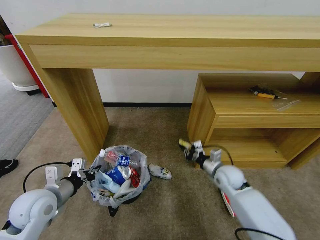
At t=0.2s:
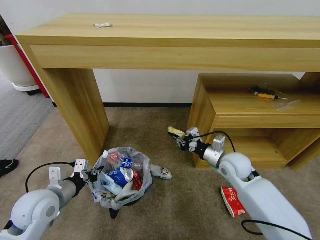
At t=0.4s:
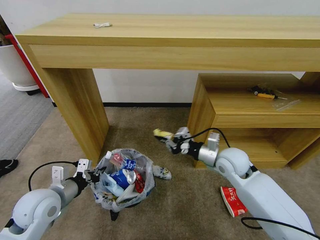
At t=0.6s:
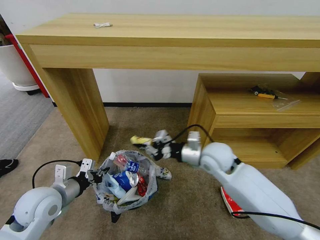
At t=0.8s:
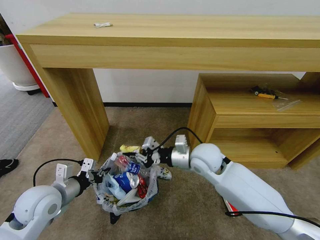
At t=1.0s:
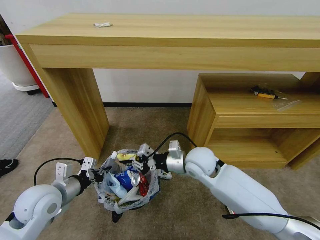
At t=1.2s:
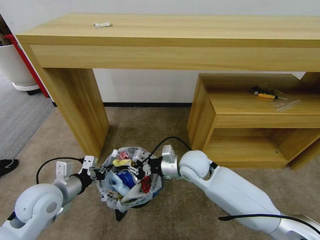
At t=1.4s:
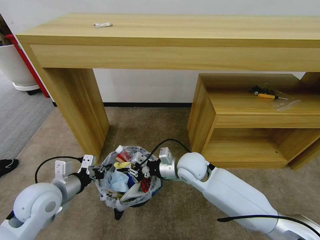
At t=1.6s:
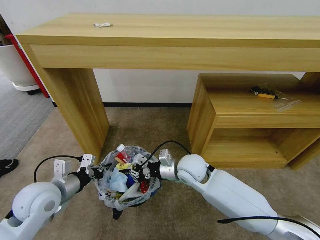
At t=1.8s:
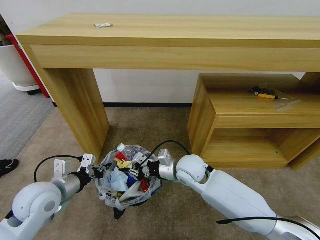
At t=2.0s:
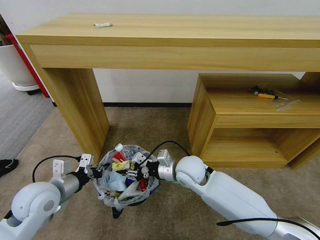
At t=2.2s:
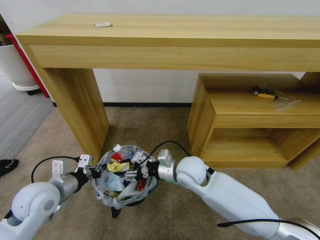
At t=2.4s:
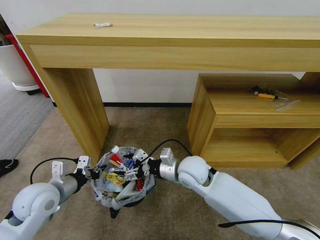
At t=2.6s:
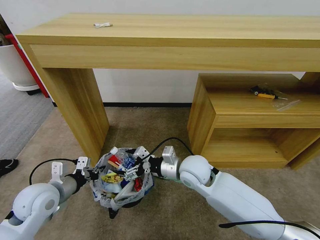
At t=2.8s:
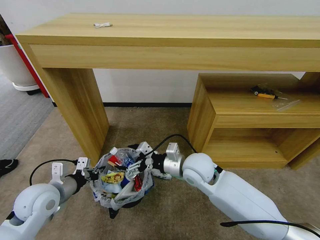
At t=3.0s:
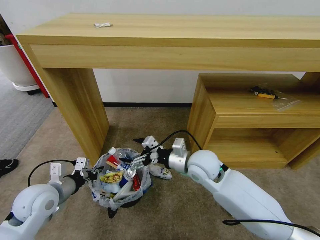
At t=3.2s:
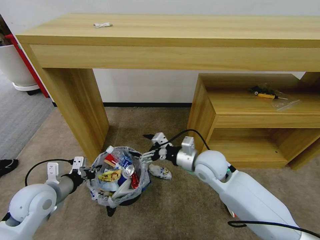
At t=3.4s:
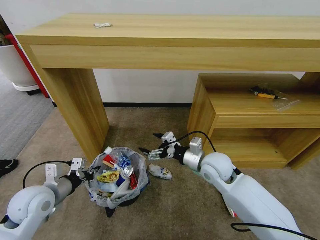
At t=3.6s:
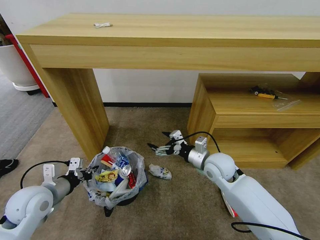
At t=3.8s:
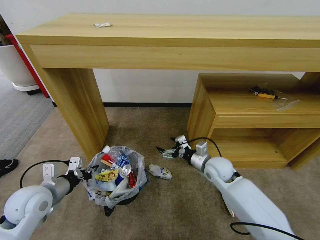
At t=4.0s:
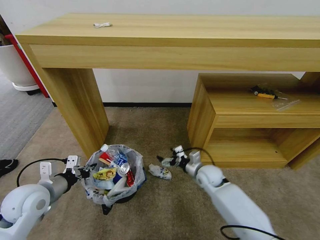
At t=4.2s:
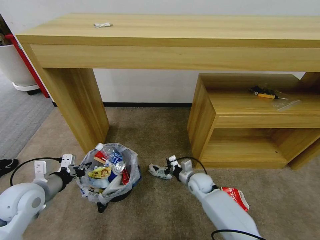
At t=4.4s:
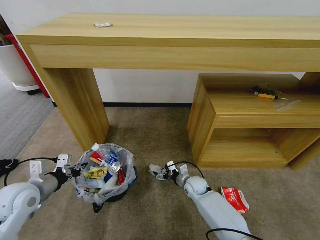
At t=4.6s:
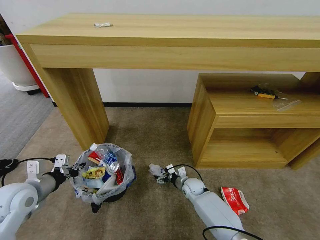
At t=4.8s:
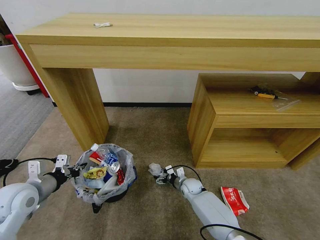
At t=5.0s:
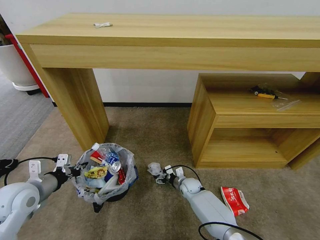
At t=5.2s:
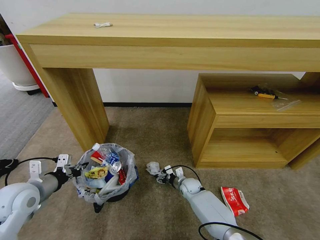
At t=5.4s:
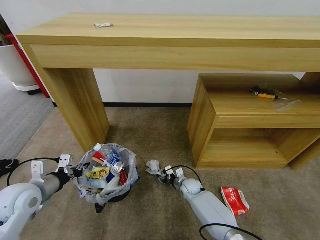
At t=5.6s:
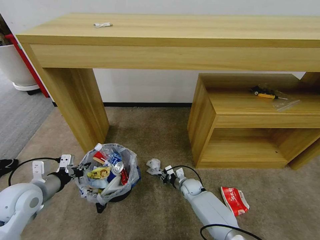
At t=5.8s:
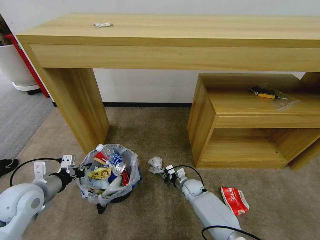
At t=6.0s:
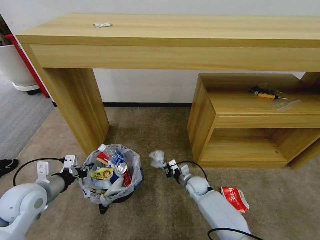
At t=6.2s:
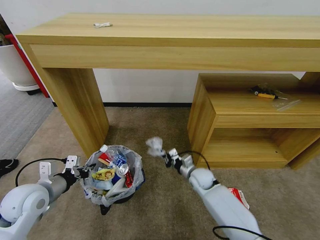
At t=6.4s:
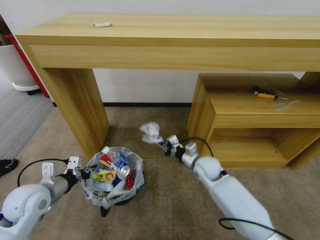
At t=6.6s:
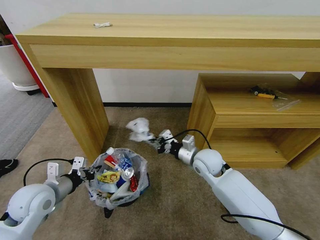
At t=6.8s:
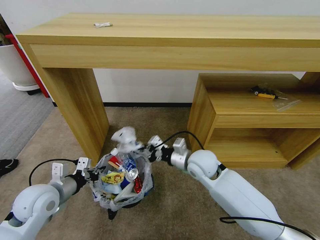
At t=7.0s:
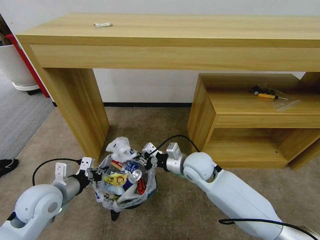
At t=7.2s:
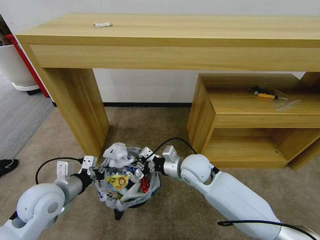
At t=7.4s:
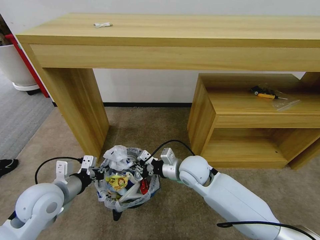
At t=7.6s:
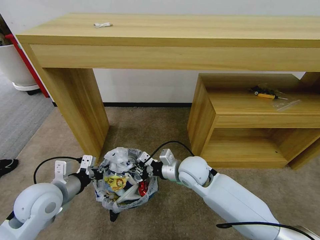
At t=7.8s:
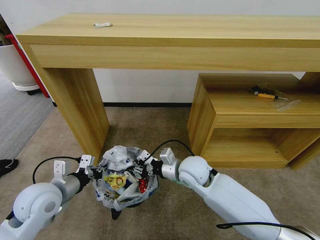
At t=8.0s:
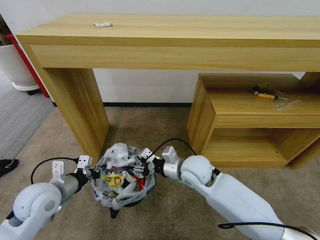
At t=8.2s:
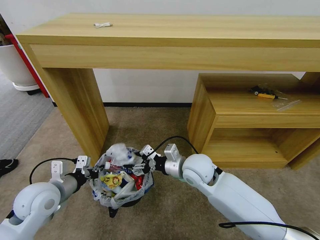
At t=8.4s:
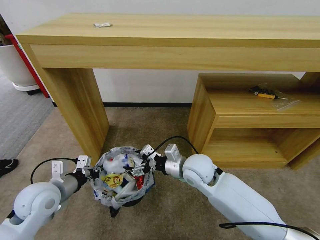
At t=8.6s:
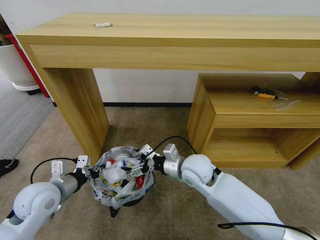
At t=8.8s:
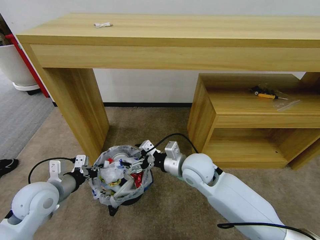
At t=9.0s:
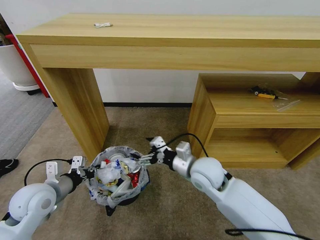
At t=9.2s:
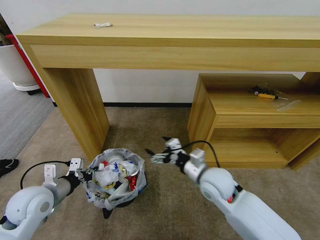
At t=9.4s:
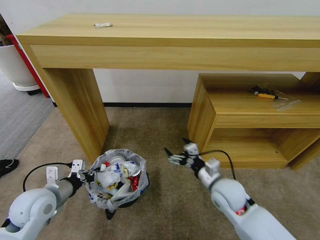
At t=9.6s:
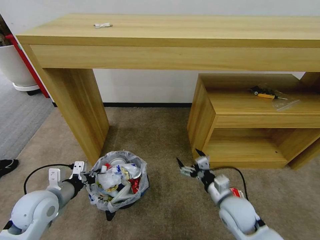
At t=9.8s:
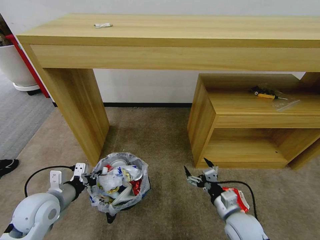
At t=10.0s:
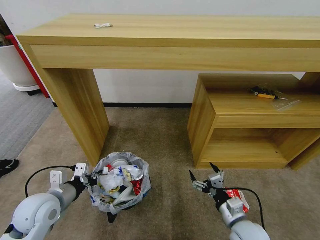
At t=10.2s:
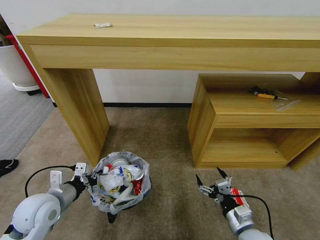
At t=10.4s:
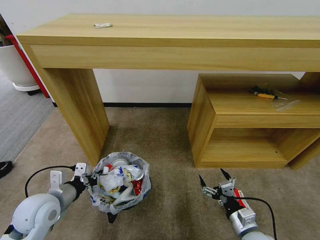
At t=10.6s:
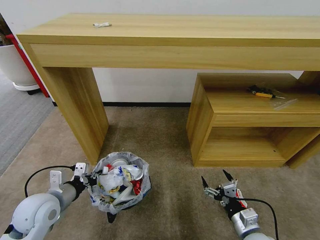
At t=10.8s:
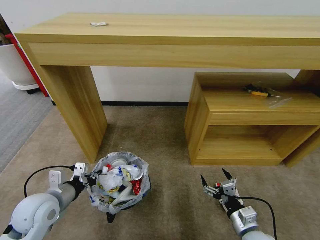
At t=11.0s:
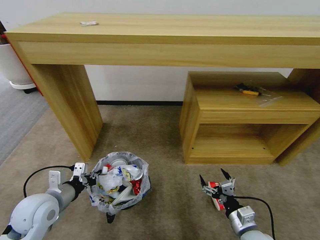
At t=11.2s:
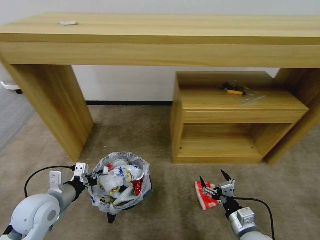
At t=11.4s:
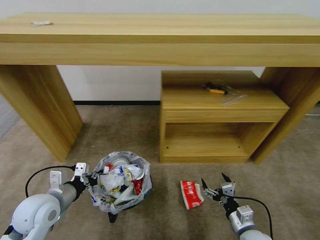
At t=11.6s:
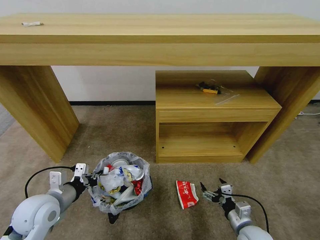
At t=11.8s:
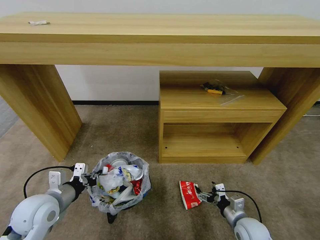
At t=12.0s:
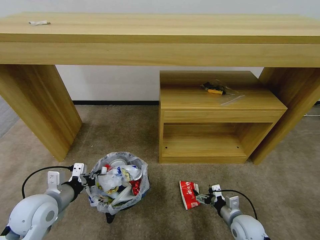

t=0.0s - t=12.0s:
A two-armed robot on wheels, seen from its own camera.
Task of the whole recording: Pick up the trash bin and place the garbage on the floor into it.
t=0.0s - t=1.6s: The right gripper heads to the left and upward, covering roughly 20 cm.
t=1.6s - t=3.0s: The right gripper ends up some 5 cm from where it was, and opens.
t=3.0s - t=4.4s: The left gripper shifts by some 5 cm; the right gripper is displaced downward by some 25 cm.
t=4.4s - t=6.0s: The right gripper closes its fingers.
t=6.0s - t=7.6s: The left gripper is displaced to the right by about 5 cm; the right gripper travels upward by roughly 20 cm.
t=7.6s - t=9.0s: The right gripper opens.
t=9.0s - t=10.4s: The right gripper is displaced backward, to the right and downward by approximately 30 cm.
t=10.4s - t=12.0s: The right gripper moves downward and forward, about 10 cm.

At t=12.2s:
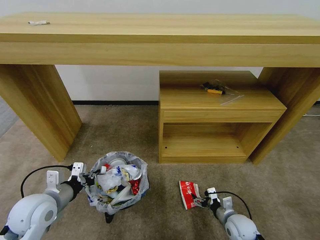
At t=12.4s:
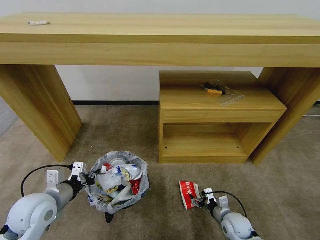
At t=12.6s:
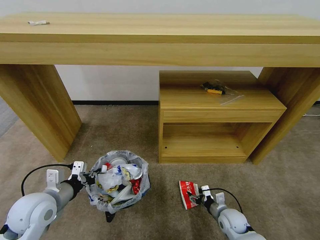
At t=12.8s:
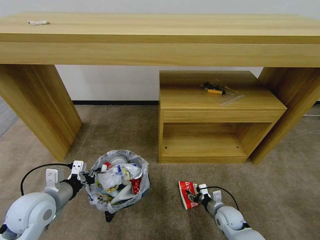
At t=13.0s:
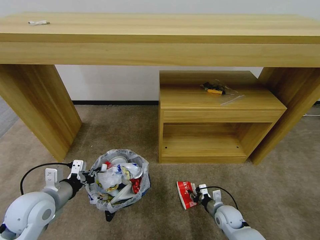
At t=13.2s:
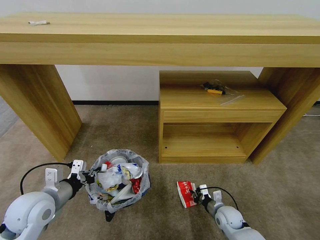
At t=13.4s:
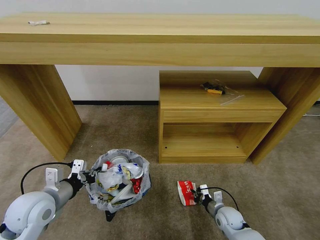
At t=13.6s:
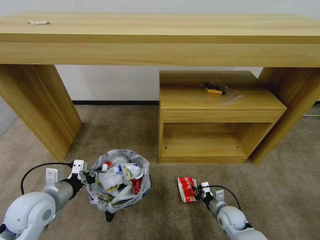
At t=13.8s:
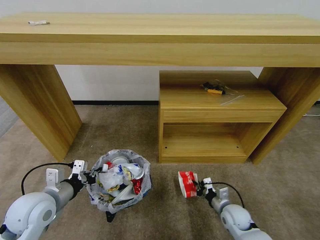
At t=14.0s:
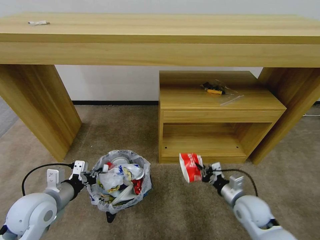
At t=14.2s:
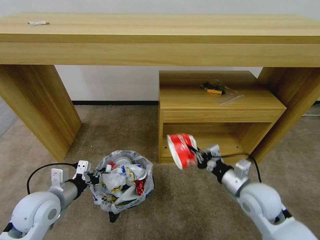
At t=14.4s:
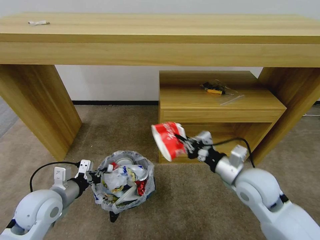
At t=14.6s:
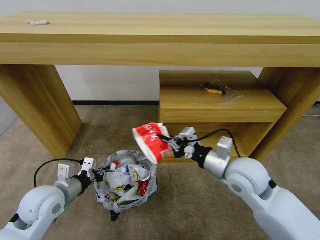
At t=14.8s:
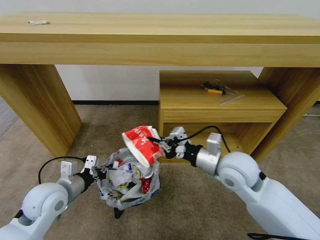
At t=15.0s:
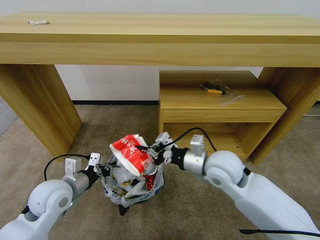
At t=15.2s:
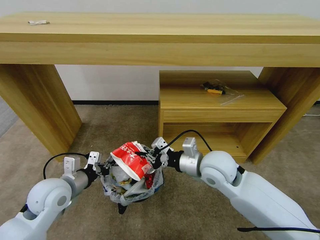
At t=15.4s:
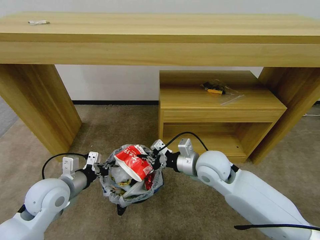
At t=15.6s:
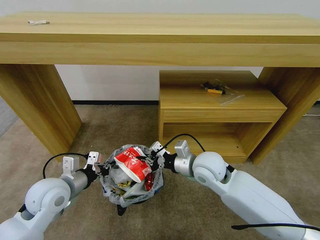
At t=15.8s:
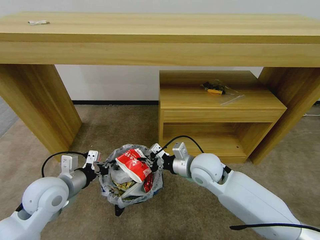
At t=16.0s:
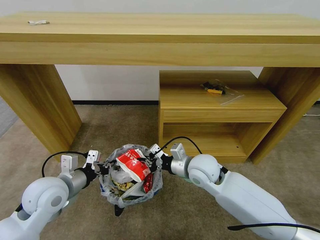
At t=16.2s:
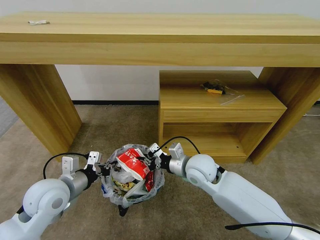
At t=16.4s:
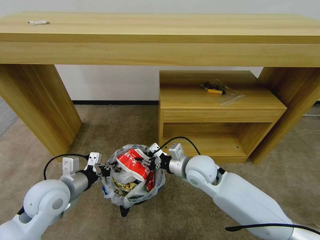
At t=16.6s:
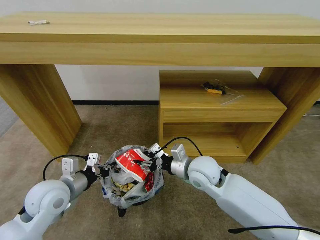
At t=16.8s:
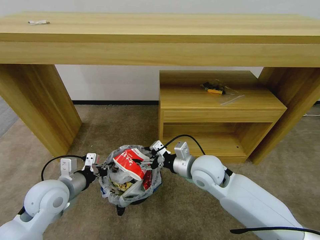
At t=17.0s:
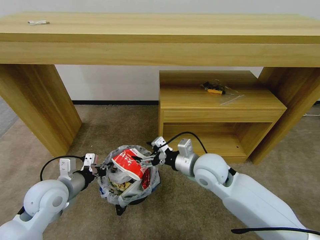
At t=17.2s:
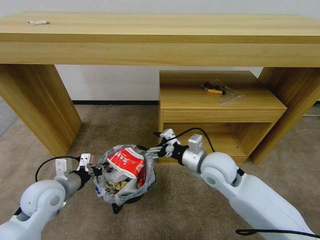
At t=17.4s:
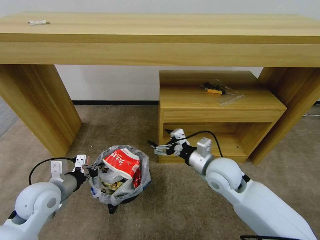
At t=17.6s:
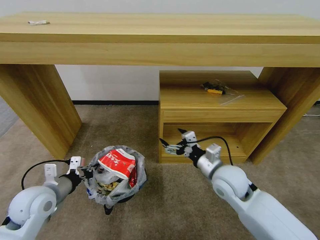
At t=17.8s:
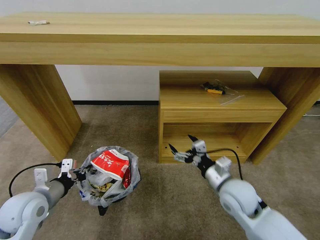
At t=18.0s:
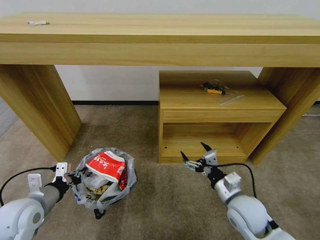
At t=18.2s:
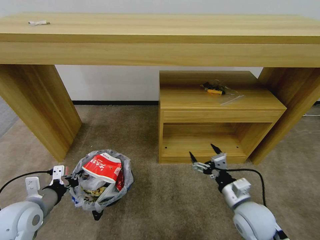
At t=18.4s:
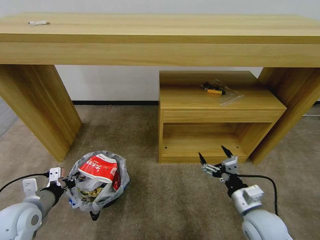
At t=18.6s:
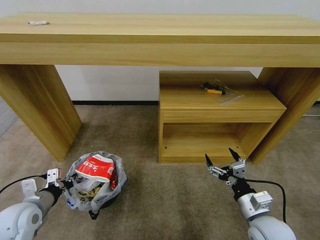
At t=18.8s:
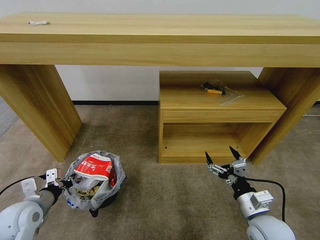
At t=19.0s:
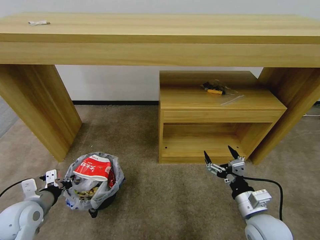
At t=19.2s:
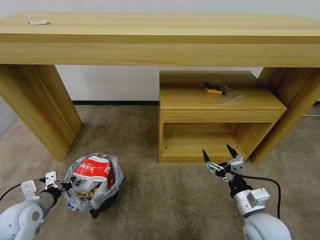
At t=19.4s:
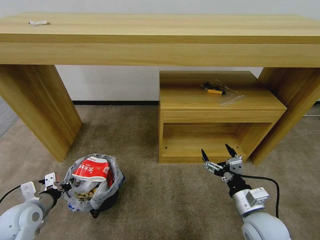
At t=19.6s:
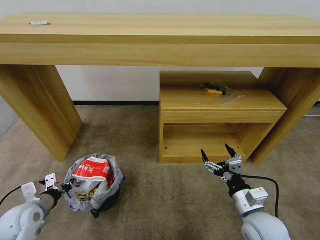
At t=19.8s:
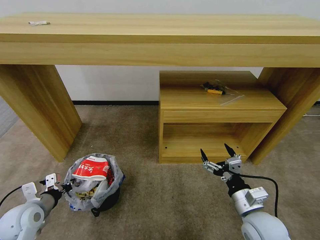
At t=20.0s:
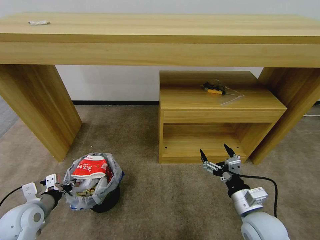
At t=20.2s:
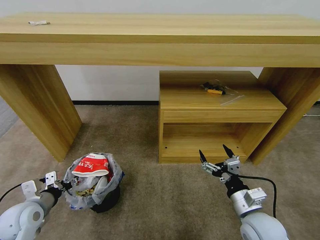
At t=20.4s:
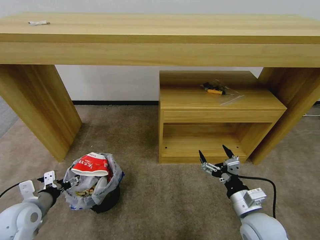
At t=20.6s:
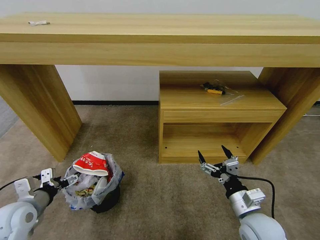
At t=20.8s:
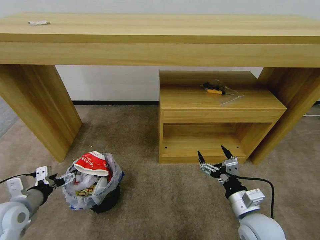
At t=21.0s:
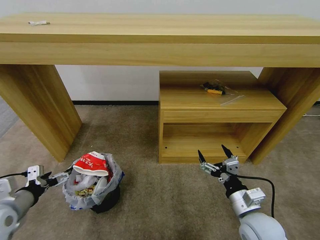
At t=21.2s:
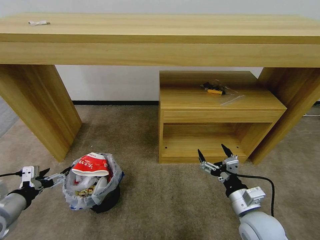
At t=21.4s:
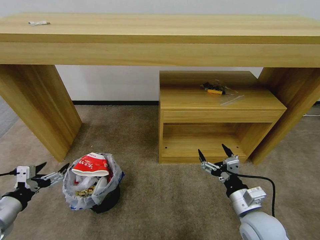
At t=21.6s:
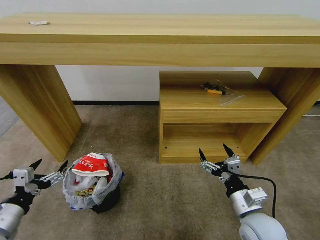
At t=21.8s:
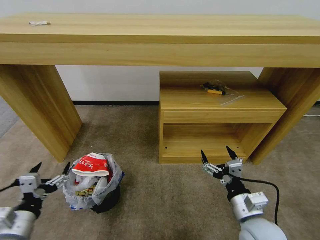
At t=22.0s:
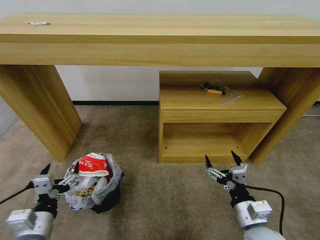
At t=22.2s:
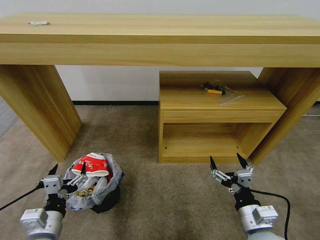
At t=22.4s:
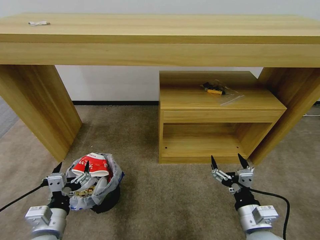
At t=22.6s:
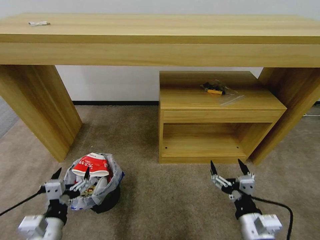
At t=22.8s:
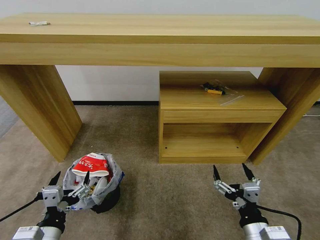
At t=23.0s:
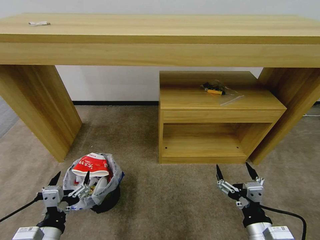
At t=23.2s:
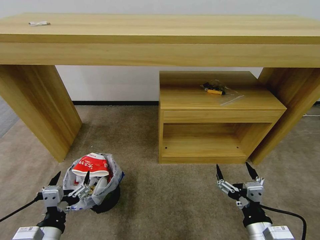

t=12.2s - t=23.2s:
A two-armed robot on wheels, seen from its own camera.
Task of the whole recording: Pick up the trash bin and place the garbage on the floor into it.
t=12.2s - t=13.8s: The right gripper closes.
t=13.8s - t=15.4s: The right gripper travels upward and to the left by some 30 cm.
t=15.4s - t=17.0s: The right gripper opens.
t=17.0s - t=18.4s: The left gripper moves to the left and backward, approximately 10 cm, while the right gripper moves backward, to the right and downward, about 20 cm.
t=18.4s - t=20.0s: The grippers stay close to where they were, moving slightly.
t=20.0s - t=21.6s: The left gripper shifts roughly 10 cm backward and upward, and opens.
t=21.6s - t=23.2s: The left gripper goes approximately 10 cm to the right; the right gripper is displaced backward by approximately 10 cm.
